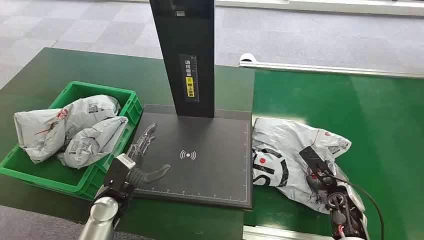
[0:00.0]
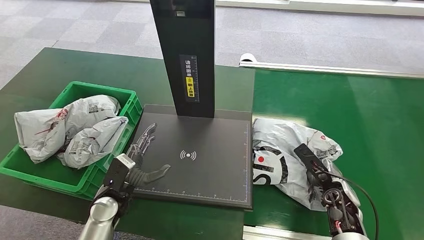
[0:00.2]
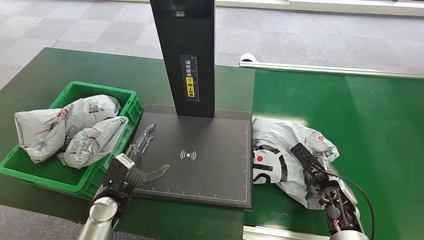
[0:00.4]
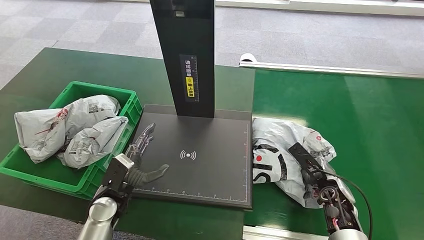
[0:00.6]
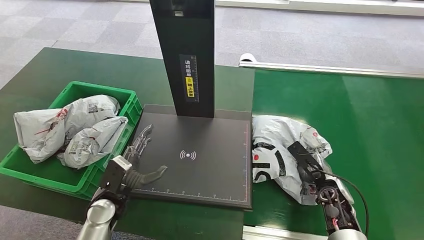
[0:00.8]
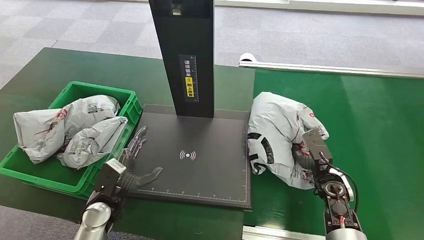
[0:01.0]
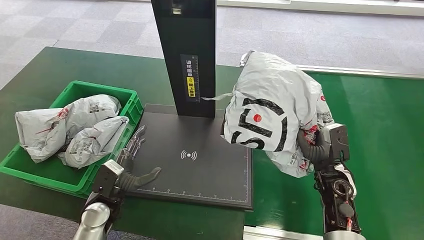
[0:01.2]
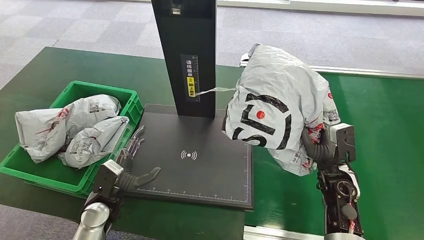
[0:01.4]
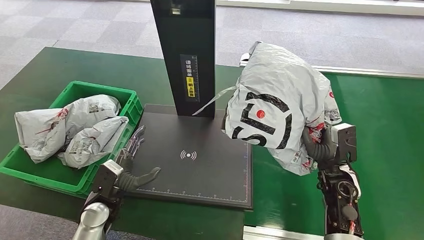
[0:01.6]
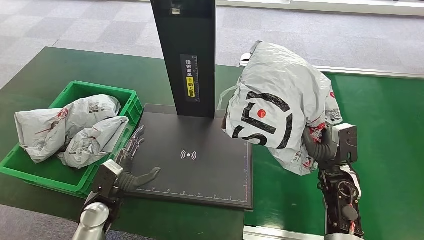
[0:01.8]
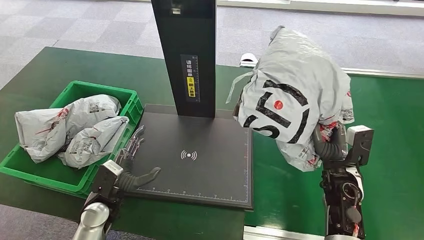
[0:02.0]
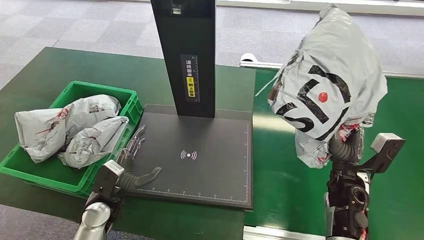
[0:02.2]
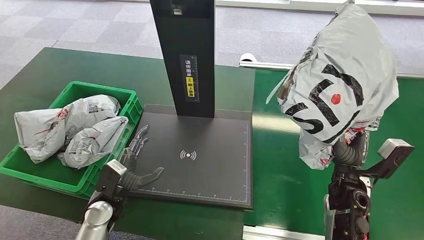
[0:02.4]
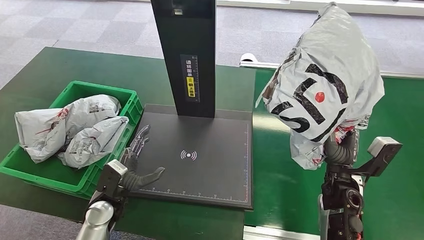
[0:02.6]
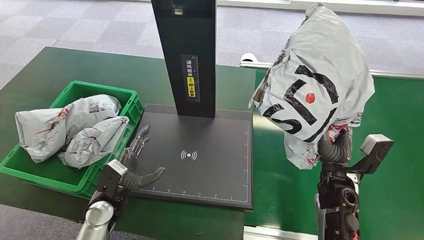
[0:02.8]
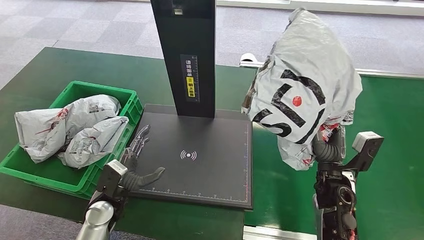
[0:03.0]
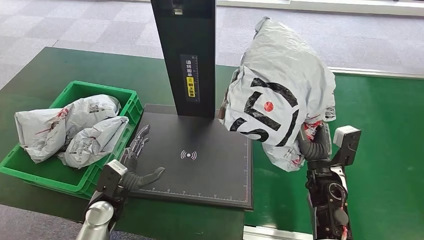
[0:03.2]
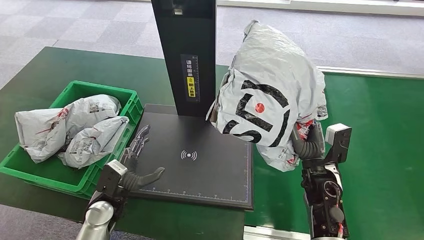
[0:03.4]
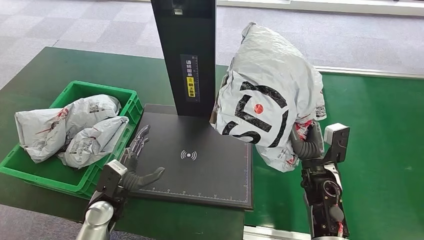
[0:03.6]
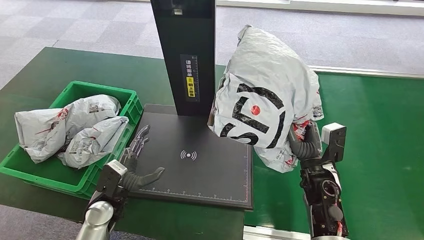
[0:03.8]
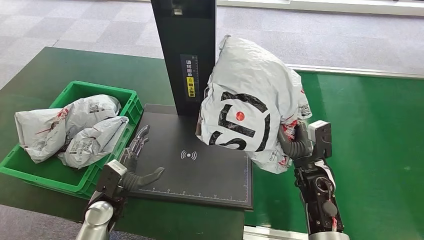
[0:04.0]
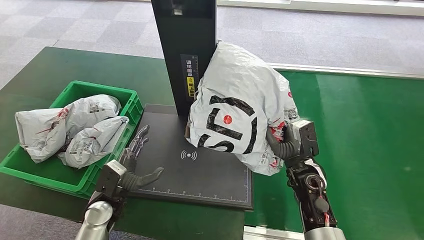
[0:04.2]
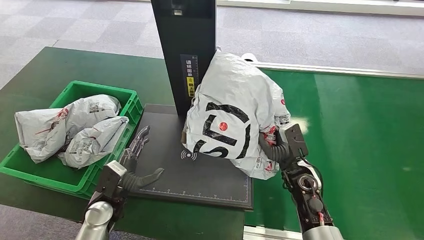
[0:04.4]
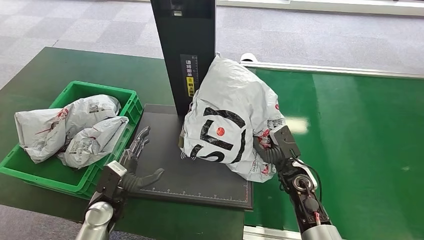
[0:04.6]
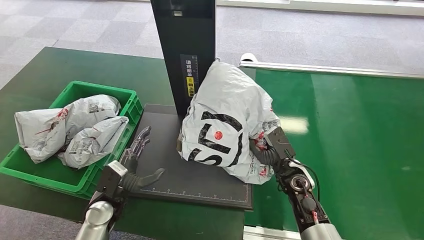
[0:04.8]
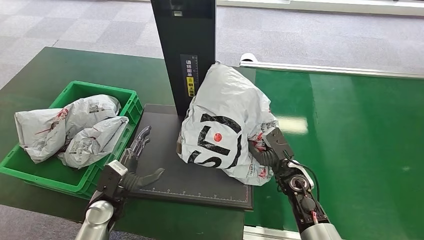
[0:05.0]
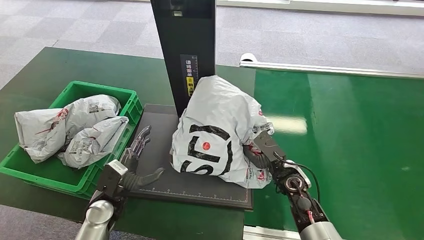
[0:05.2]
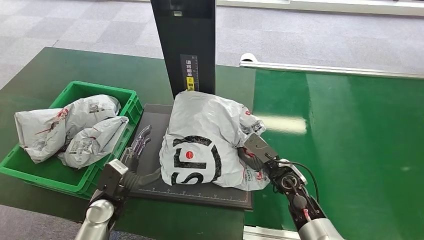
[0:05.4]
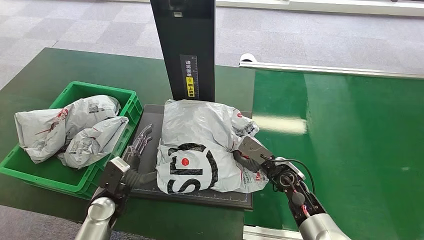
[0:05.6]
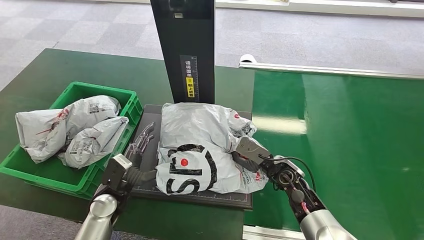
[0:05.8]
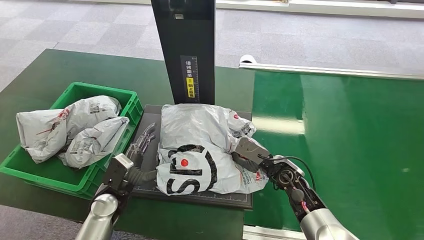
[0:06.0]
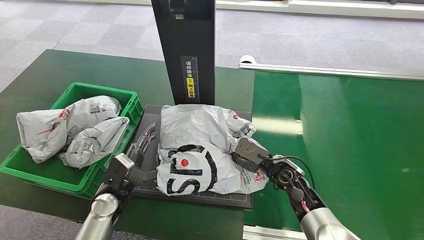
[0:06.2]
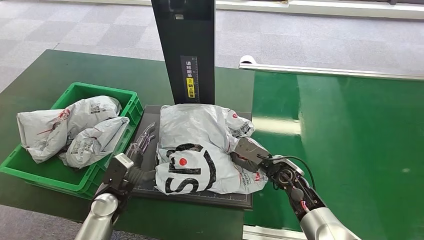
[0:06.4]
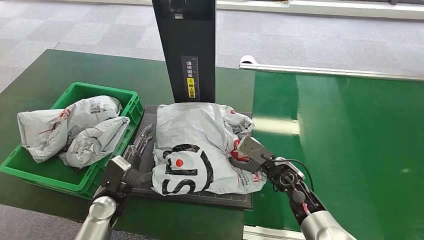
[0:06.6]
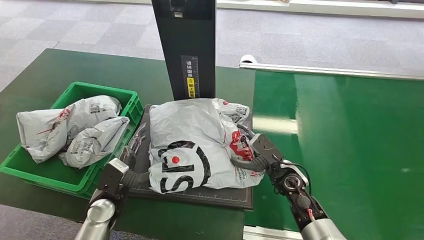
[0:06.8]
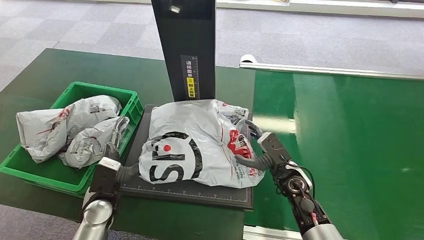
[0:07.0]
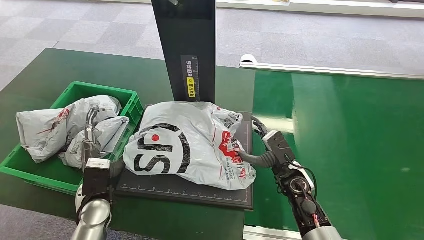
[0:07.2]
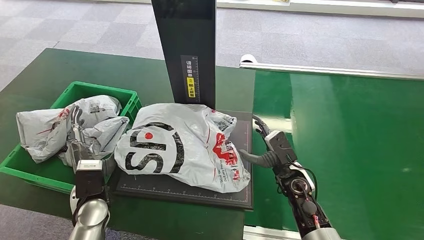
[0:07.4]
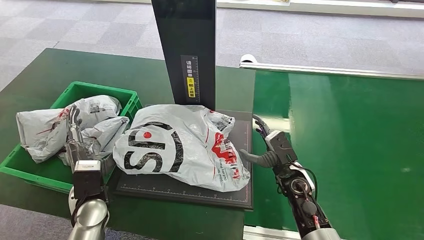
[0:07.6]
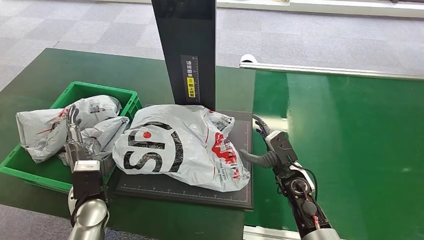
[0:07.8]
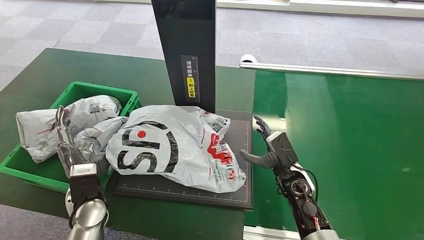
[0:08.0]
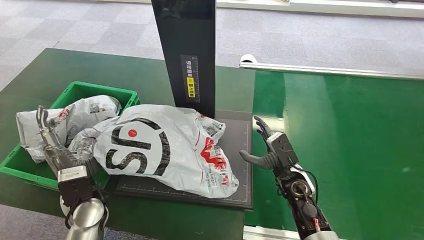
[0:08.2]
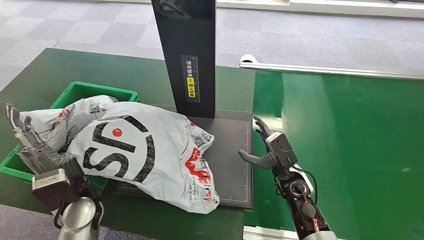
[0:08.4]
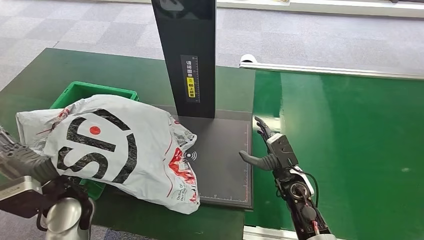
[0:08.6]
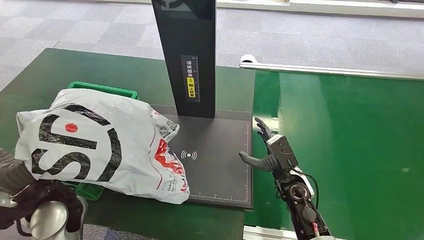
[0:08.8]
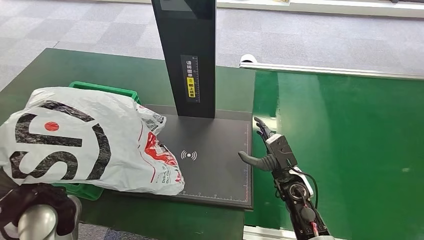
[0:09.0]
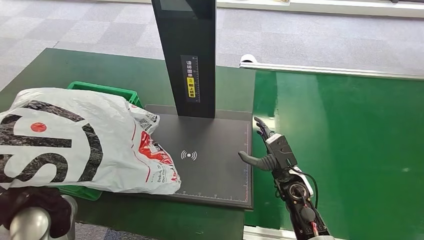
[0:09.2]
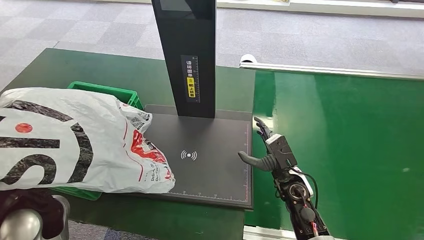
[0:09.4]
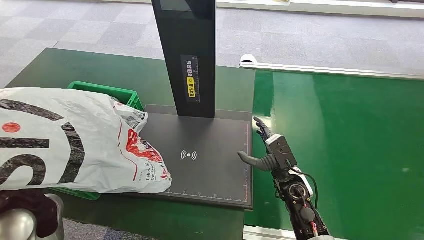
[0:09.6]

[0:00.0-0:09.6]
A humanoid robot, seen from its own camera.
Step, 0:00.0 to 0:01.4: Pick up the package from the conveyor belt.
Step, 0:01.6 to 0:07.0: Place the package onto the inbound machine.
Step, 0:07.2 to 0:09.6: Pick up the package from the inbound machine.
0:03.2 to 0:04.8: The right hand heads to the left, covering some 5 cm.
